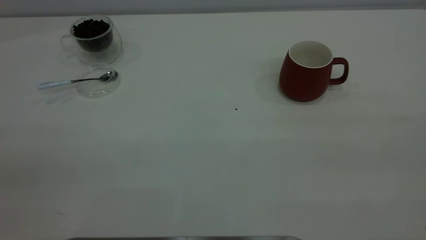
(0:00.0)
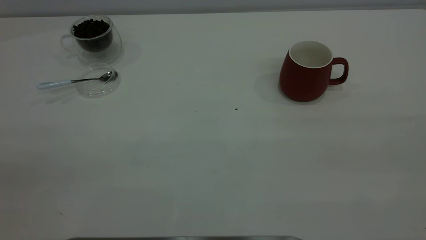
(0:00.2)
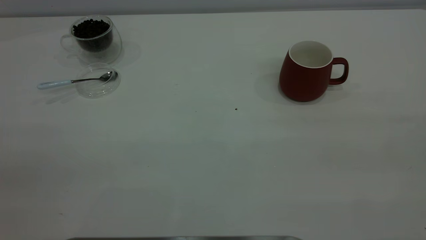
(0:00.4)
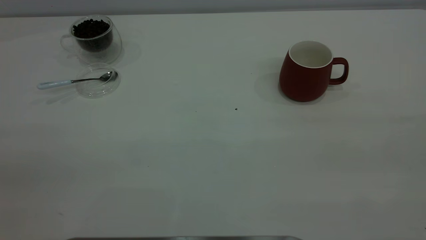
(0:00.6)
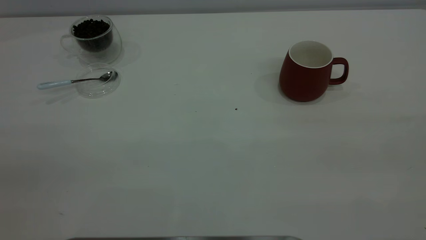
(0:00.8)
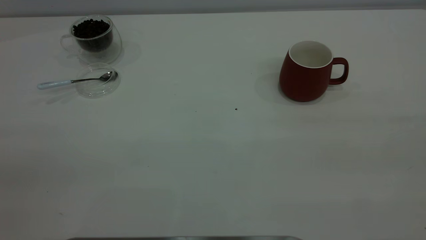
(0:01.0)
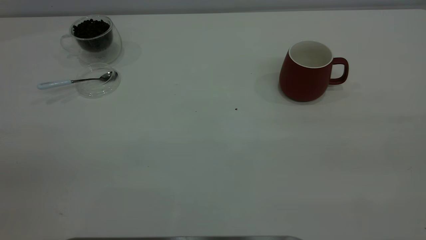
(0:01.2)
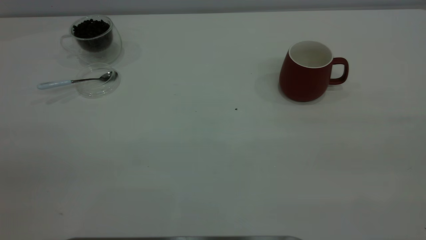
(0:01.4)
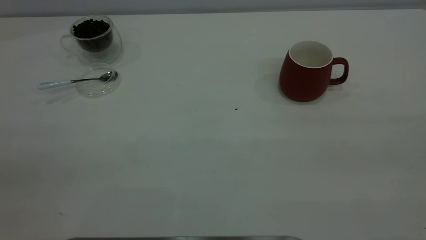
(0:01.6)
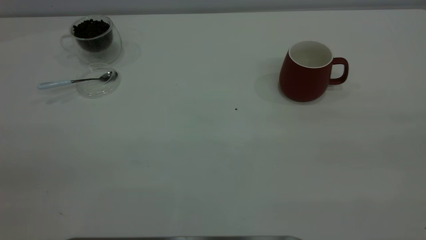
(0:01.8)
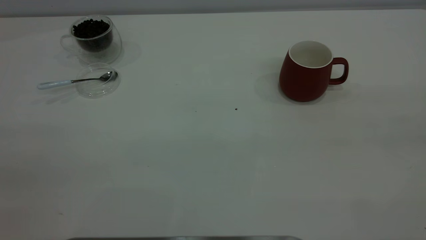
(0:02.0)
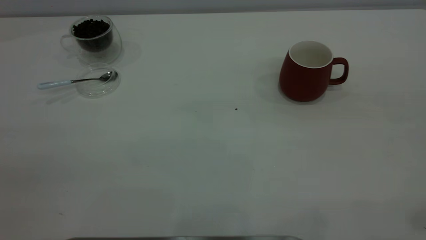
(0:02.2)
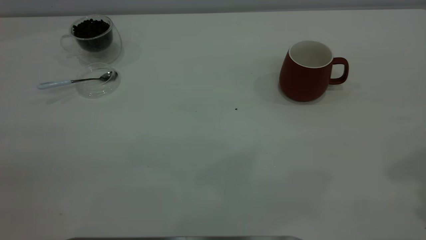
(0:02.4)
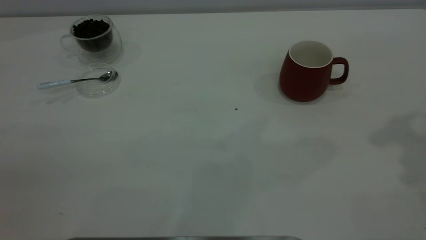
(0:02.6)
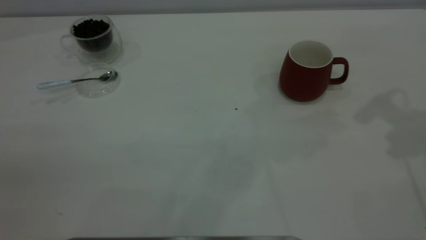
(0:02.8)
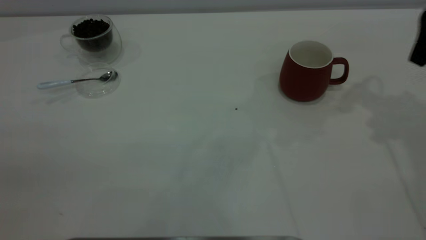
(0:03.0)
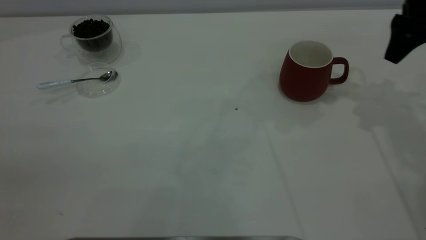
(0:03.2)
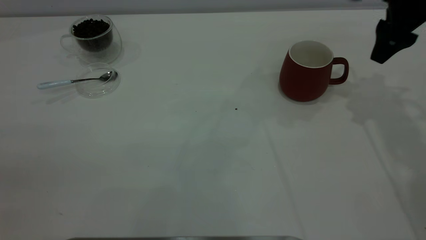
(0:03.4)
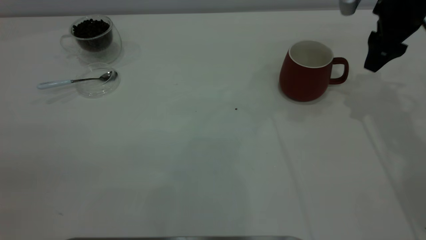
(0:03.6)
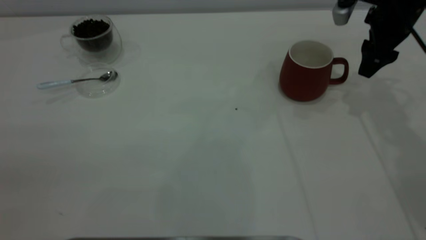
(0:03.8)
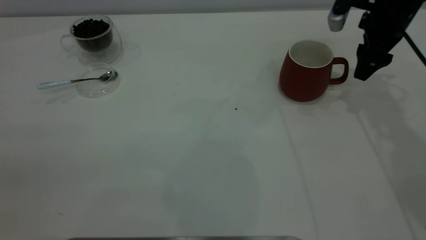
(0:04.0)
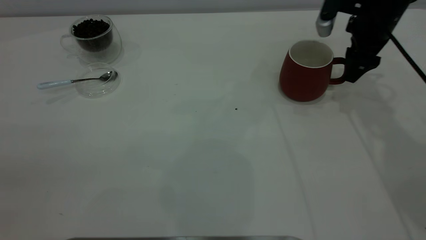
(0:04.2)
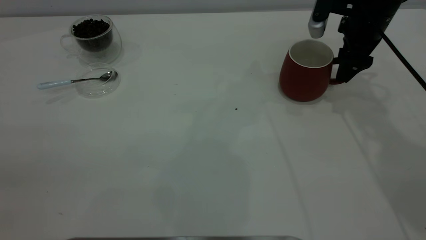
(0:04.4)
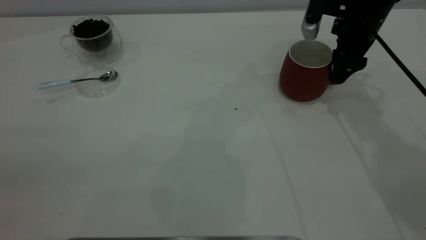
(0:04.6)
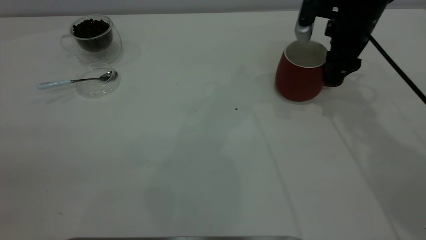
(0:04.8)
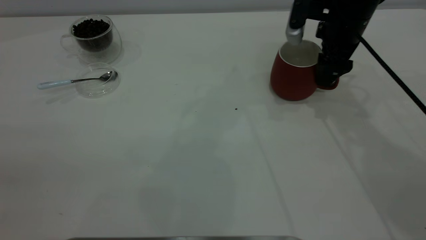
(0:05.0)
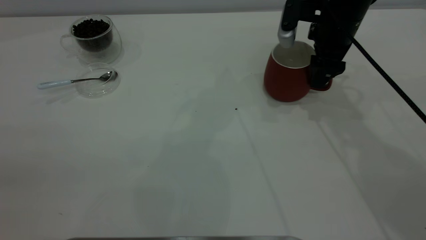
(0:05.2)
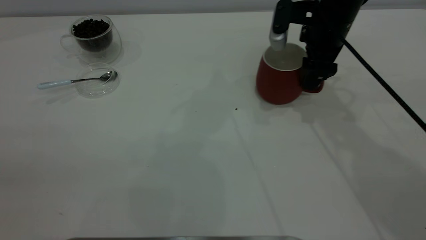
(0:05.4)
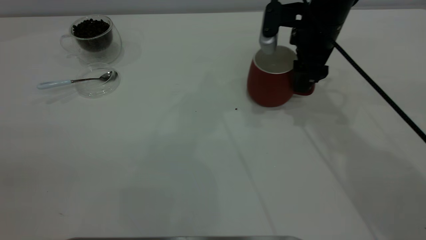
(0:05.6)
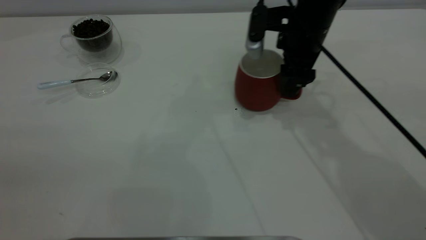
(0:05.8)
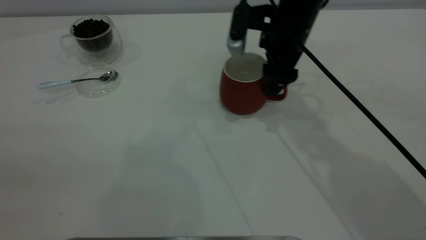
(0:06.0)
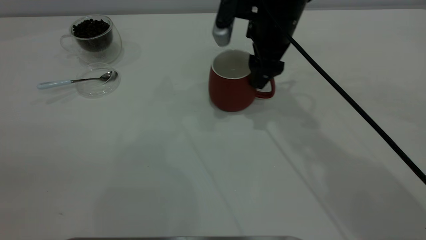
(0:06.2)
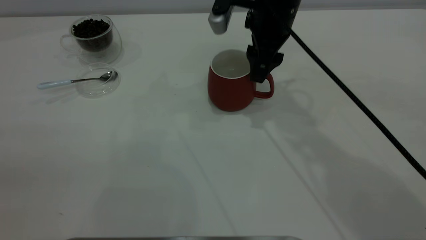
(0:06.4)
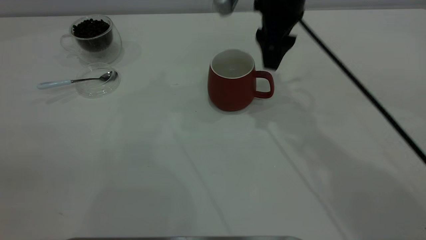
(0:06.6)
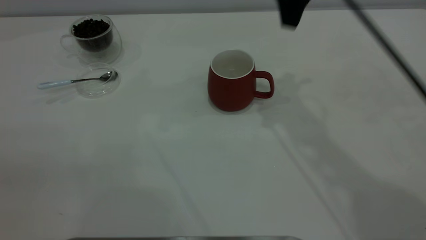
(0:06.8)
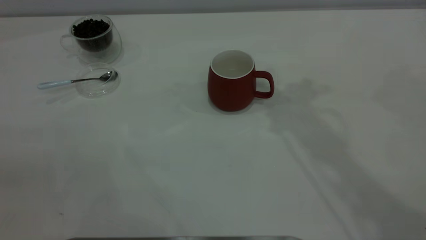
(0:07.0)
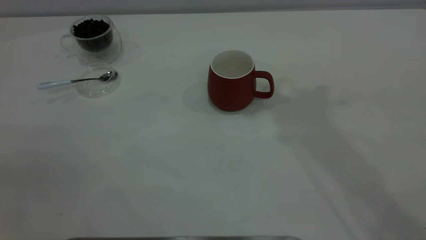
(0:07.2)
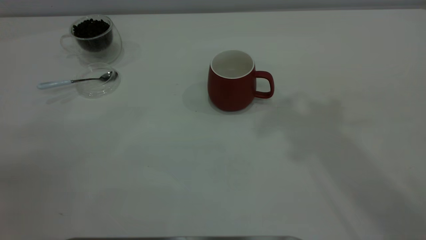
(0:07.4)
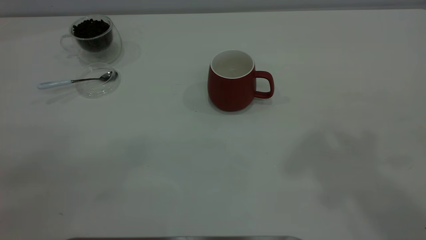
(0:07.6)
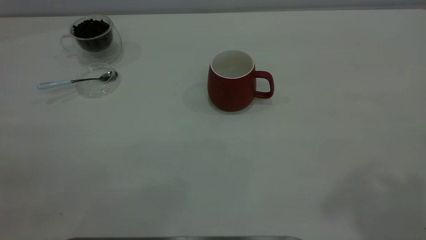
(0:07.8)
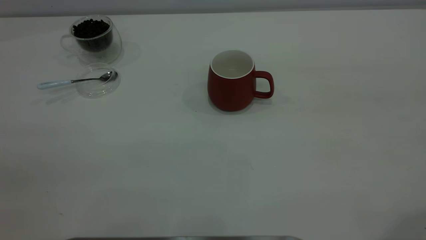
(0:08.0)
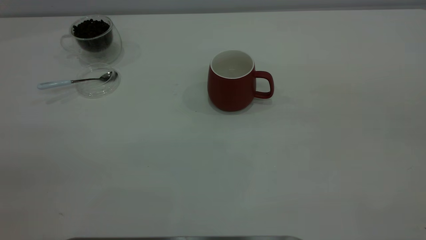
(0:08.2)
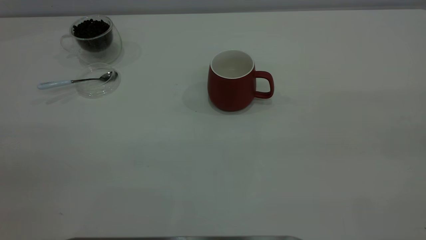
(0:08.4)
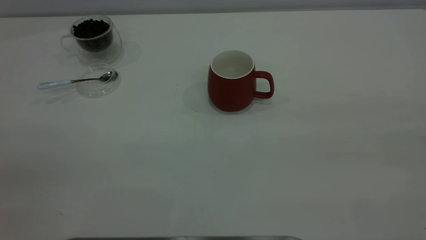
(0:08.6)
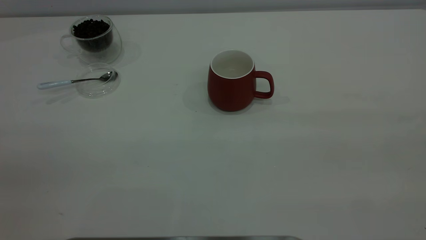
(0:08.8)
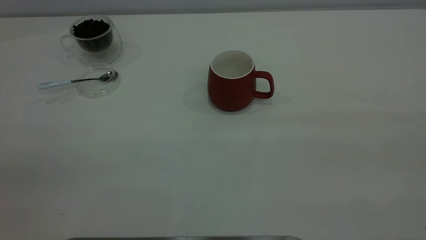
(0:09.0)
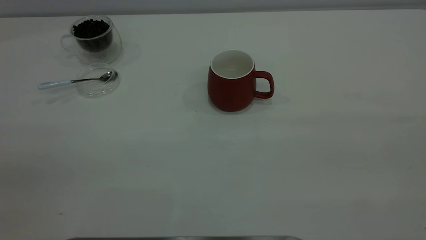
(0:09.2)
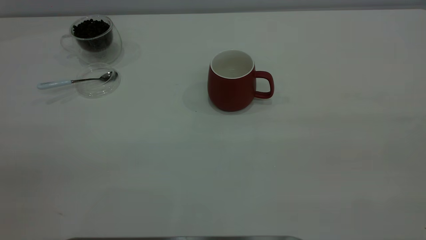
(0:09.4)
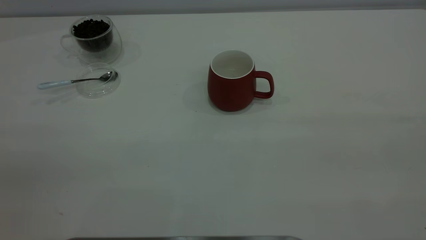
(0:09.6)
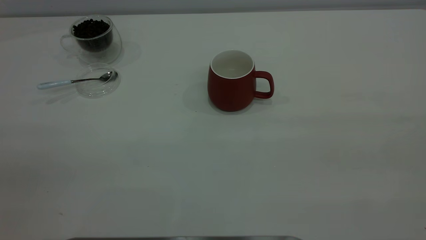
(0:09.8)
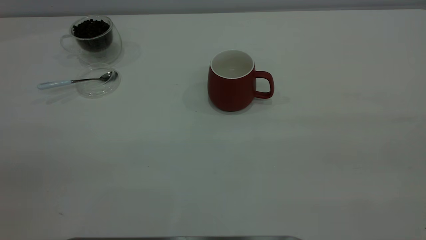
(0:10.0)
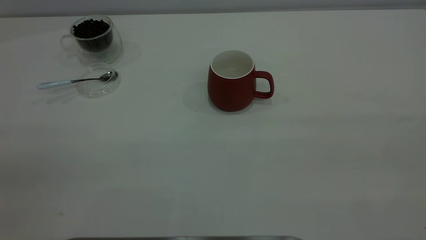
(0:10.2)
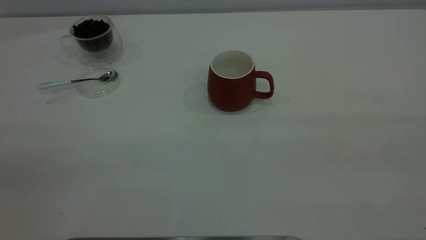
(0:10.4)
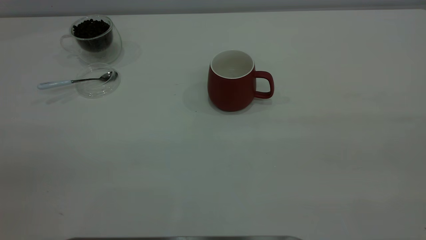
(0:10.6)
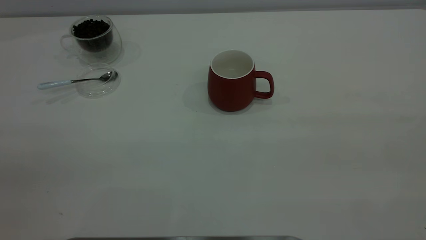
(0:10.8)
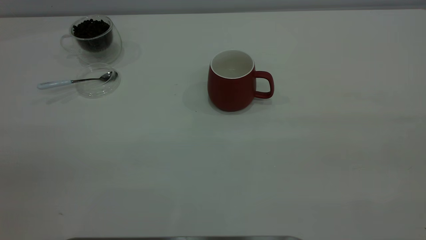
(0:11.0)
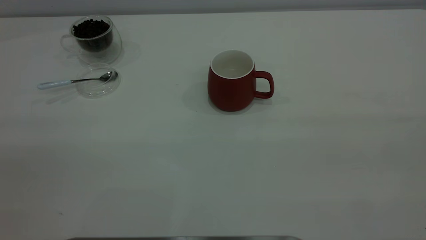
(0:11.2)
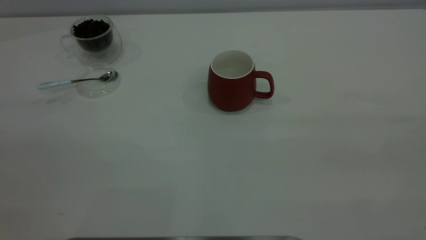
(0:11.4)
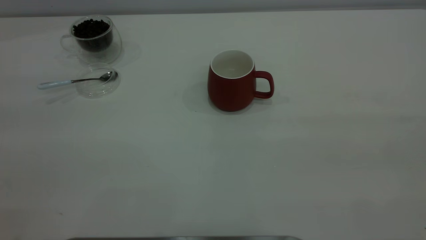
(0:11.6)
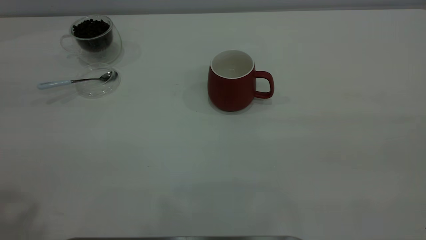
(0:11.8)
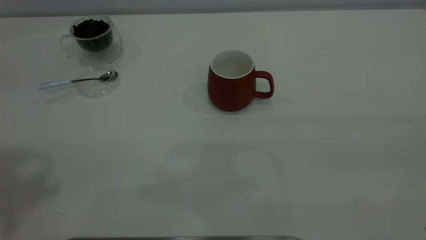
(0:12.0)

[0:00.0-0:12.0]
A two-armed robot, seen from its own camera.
Task of the whole recording: the right gripper place the red cup in the center of the table, the left gripper take the blue spoon from the cup lid and scoop out the coffee beans from the coffee cup and put them into the red cup, the left gripper put the spoon back into the cup lid.
Step, 0:00.0 to 0:06.4: Move the cup to the center of view.
0:00.0 to 0:01.6: Both grippers stay about where they are.
0:03.0 to 0:04.4: The right gripper heads downward, forward and to the left, covering roughly 15 cm.
0:04.4 to 0:06.0: The right gripper is displaced to the left by roughly 15 cm.
0:06.0 to 0:07.6: The right gripper moves upward and backward, about 40 cm.
0:09.0 to 0:10.4: Both grippers stay about where they are.

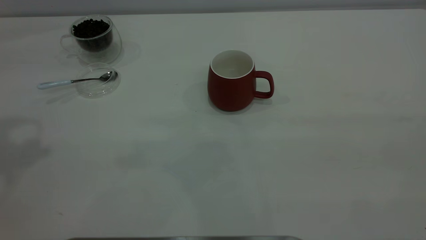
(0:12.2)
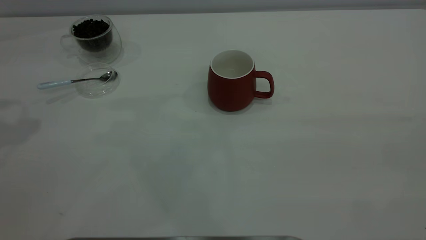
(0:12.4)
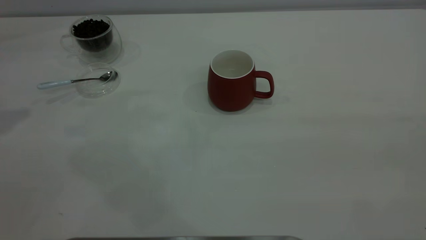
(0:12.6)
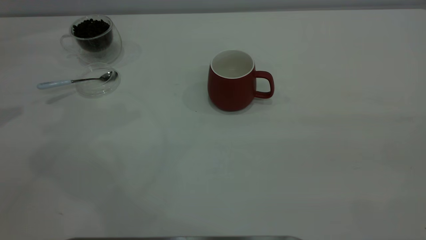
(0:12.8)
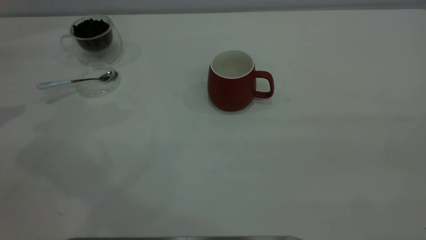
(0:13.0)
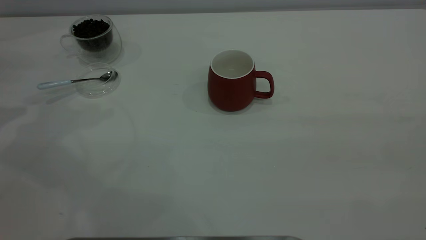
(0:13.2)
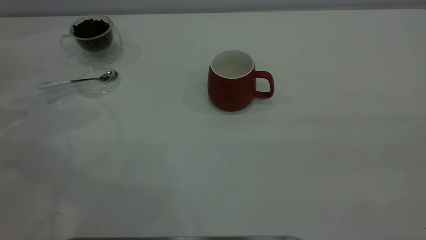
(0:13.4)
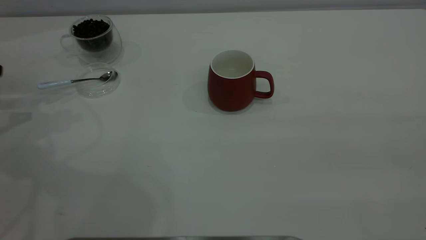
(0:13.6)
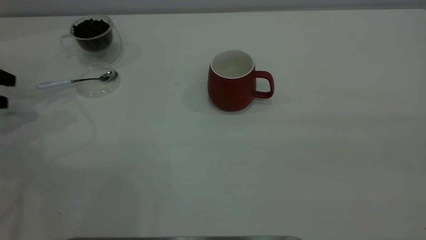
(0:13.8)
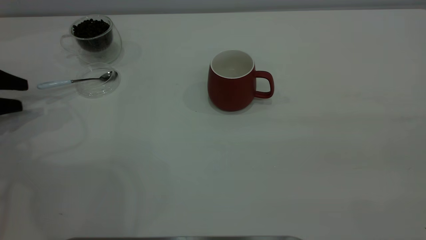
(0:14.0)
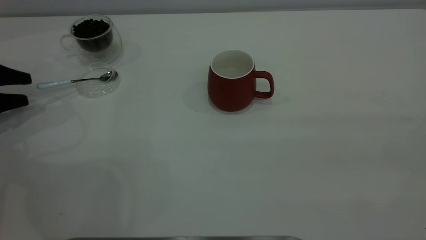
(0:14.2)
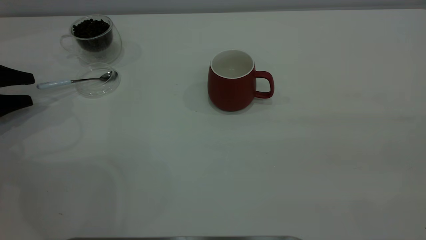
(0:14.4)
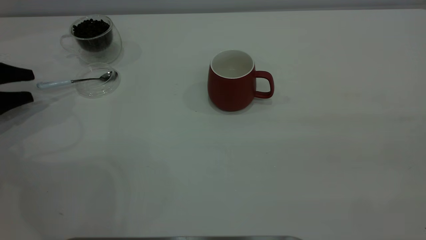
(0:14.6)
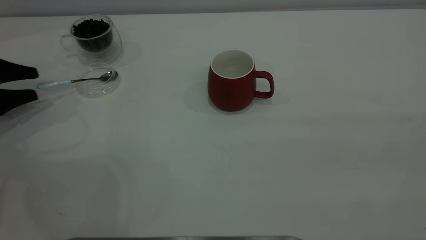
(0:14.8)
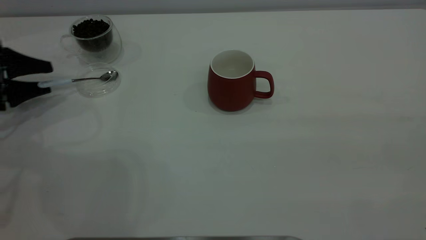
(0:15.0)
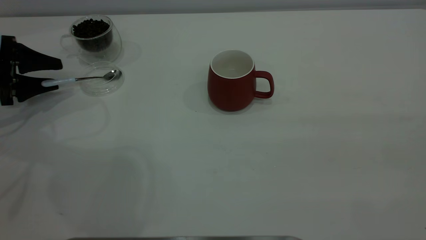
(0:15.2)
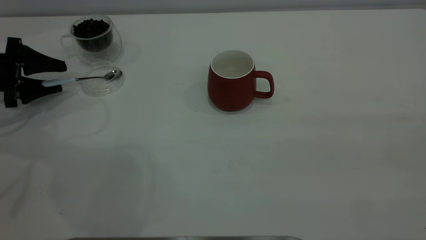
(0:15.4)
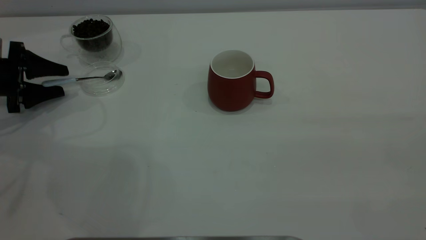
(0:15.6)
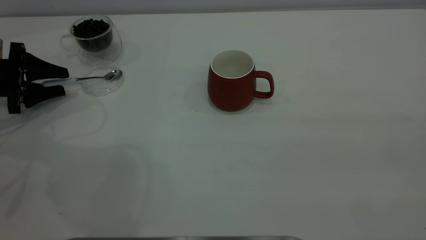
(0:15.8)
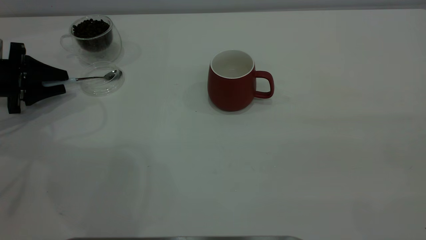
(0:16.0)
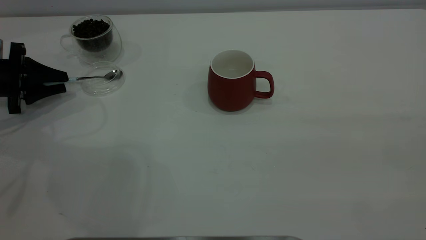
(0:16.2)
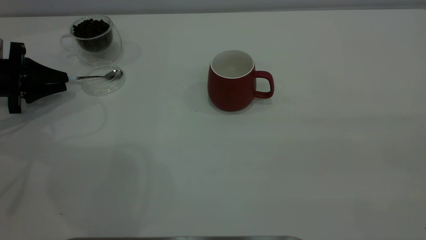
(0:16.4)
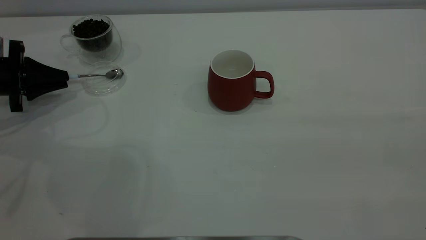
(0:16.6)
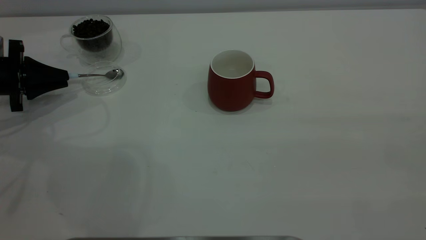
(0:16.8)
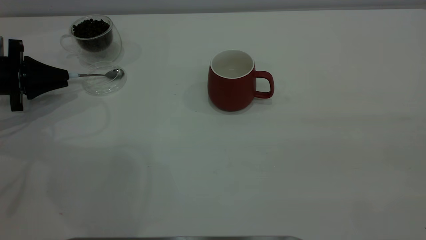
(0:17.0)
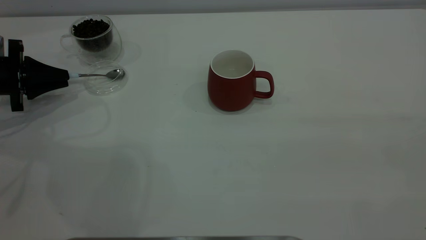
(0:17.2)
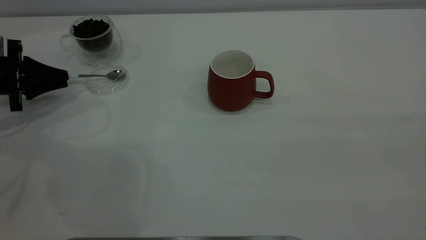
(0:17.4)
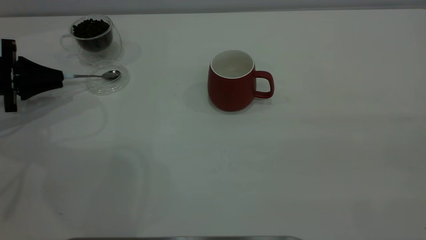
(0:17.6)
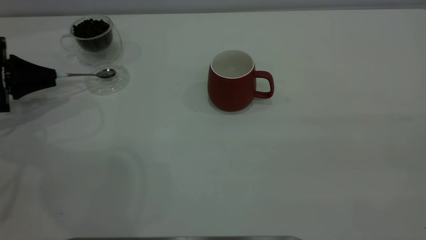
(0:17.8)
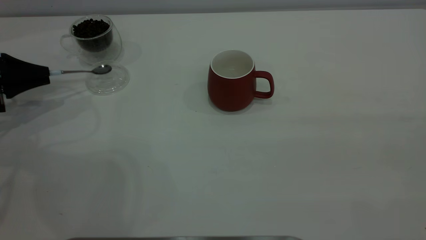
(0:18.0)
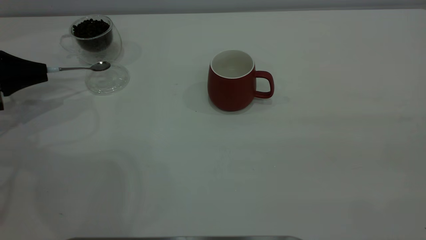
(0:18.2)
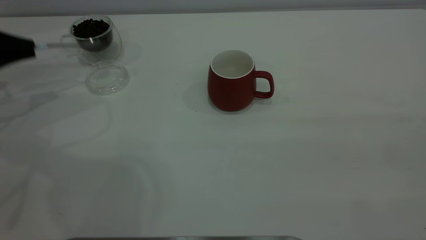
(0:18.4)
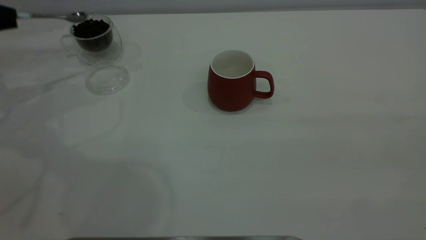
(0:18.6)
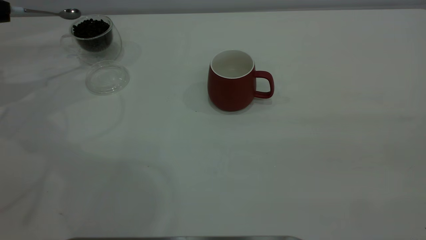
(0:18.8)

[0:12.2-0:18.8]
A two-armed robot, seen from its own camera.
Task of the whole recording: the right gripper place the red cup in the center of the table, the left gripper take the blue spoon from the cup lid and scoop out the coffee beans from the coffee cup and put them into the red cup, the left gripper put the spoon back into the cup lid.
Step, 0:12.2 to 0:18.2: Pick up the spoon.
0:12.2 to 0:13.8: The left gripper moves downward, approximately 30 cm.
0:13.8 to 0:15.4: The left gripper travels to the right by some 5 cm.
0:15.4 to 0:17.2: The left gripper closes up.
0:17.2 to 0:18.8: The left gripper shifts roughly 15 cm upward and to the left.
